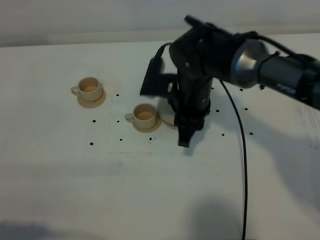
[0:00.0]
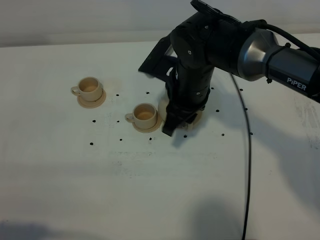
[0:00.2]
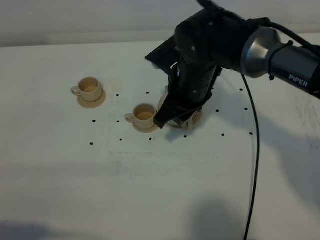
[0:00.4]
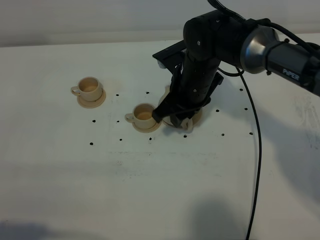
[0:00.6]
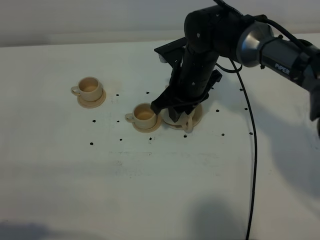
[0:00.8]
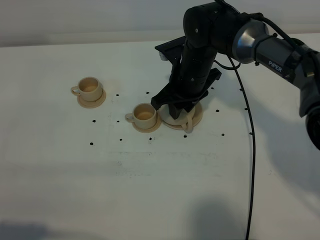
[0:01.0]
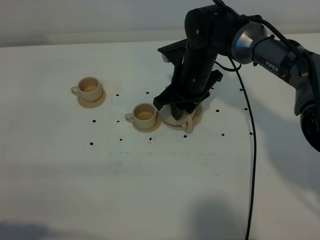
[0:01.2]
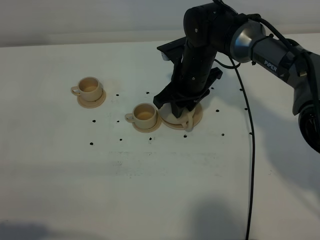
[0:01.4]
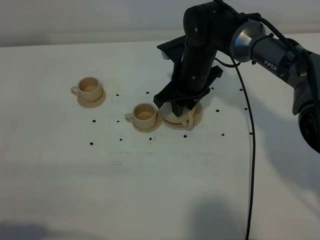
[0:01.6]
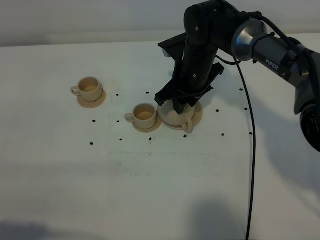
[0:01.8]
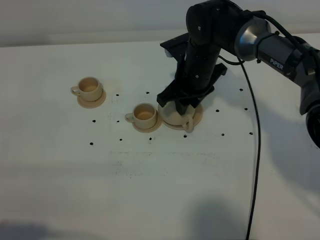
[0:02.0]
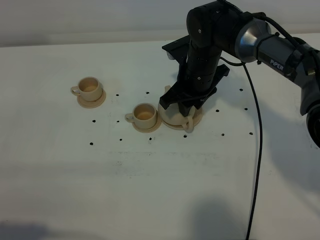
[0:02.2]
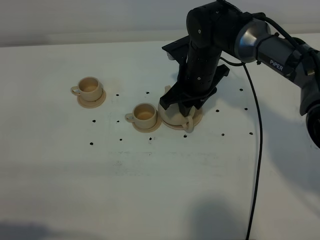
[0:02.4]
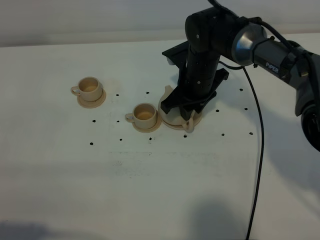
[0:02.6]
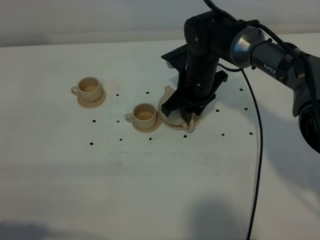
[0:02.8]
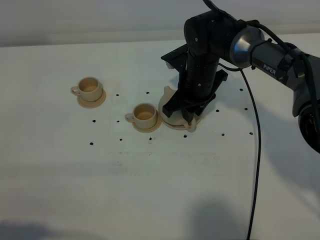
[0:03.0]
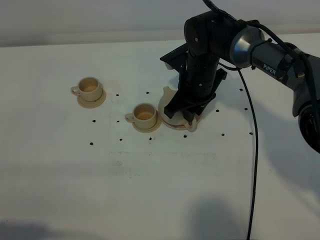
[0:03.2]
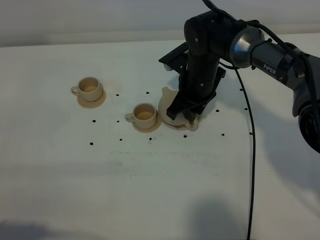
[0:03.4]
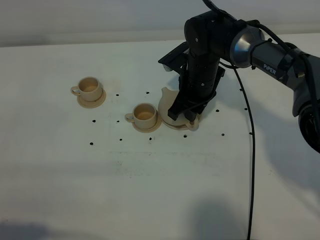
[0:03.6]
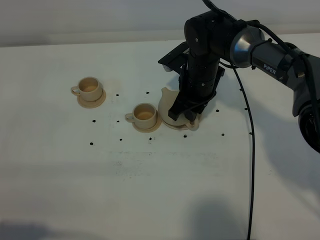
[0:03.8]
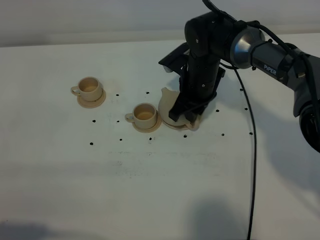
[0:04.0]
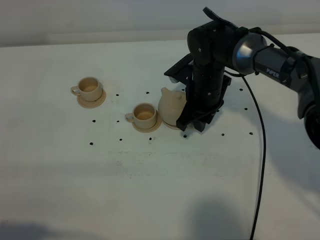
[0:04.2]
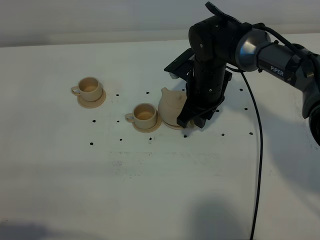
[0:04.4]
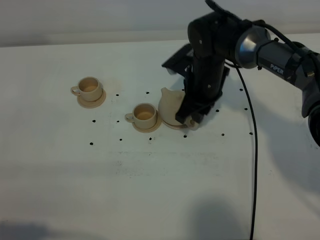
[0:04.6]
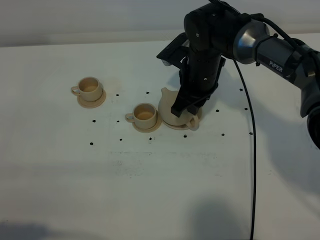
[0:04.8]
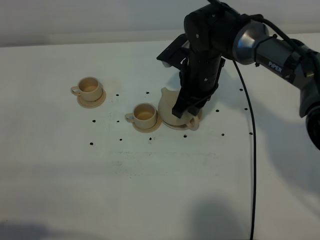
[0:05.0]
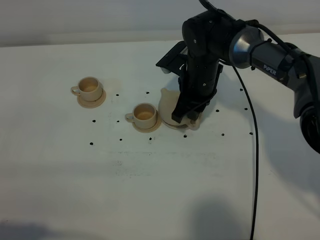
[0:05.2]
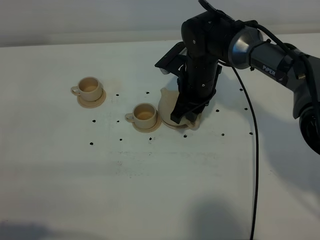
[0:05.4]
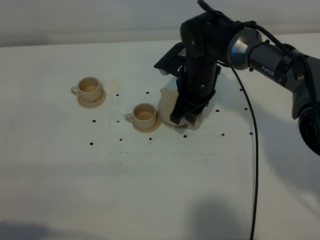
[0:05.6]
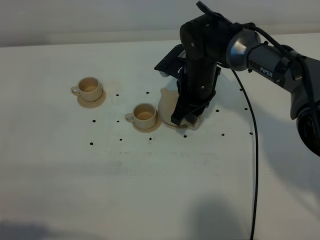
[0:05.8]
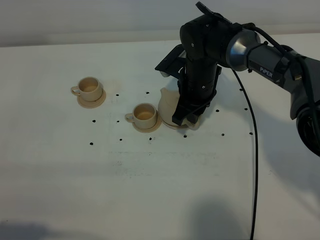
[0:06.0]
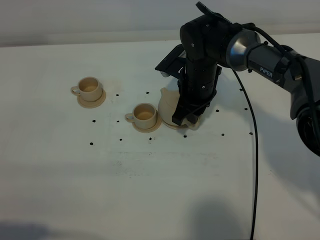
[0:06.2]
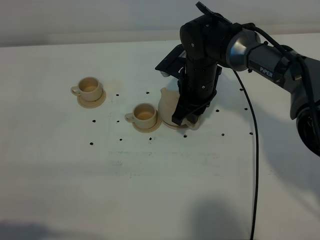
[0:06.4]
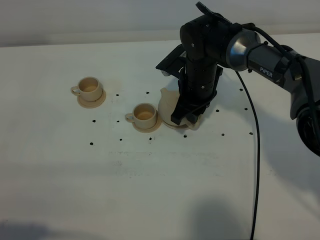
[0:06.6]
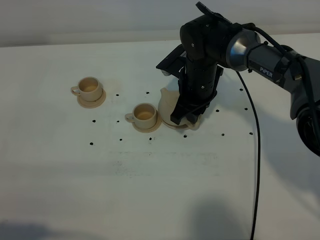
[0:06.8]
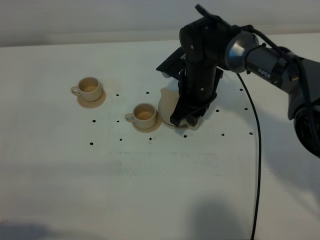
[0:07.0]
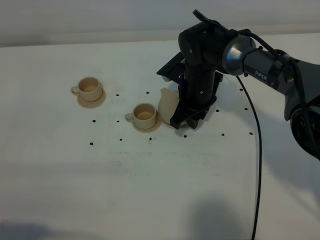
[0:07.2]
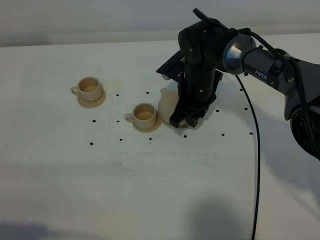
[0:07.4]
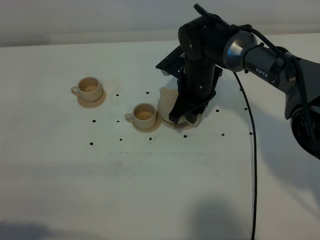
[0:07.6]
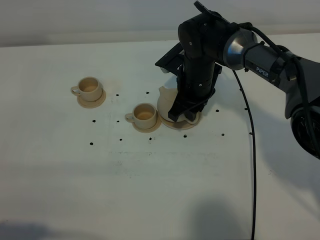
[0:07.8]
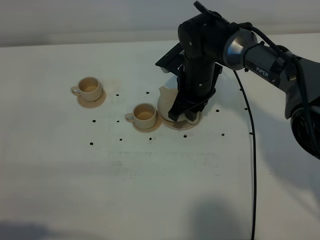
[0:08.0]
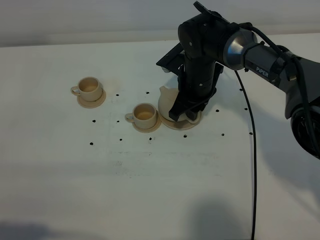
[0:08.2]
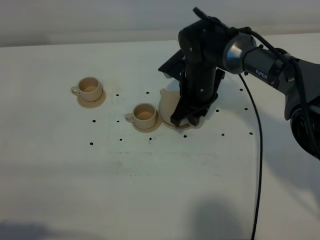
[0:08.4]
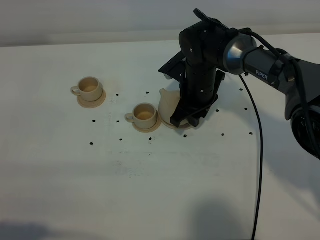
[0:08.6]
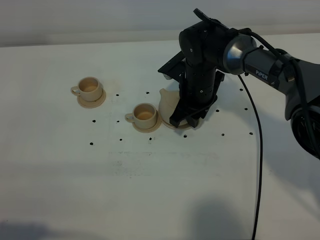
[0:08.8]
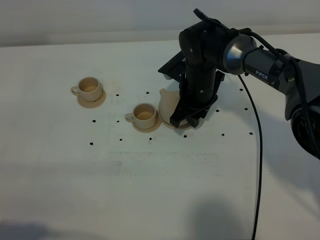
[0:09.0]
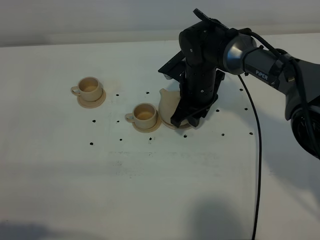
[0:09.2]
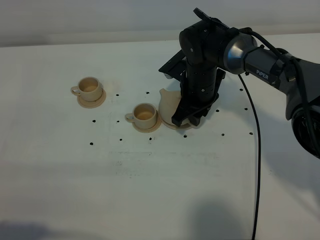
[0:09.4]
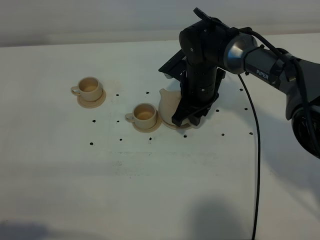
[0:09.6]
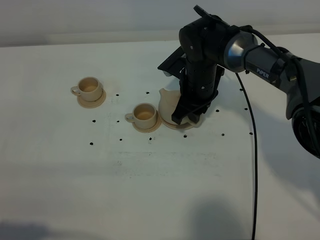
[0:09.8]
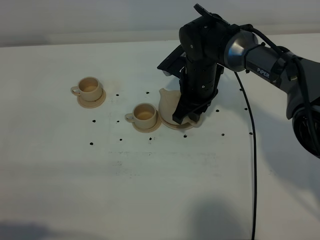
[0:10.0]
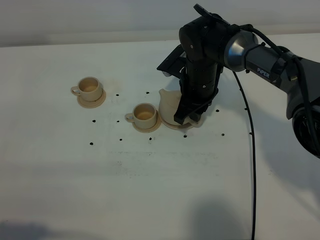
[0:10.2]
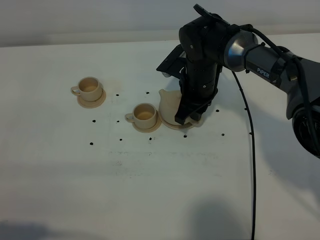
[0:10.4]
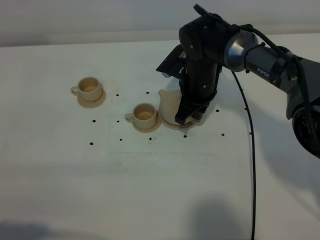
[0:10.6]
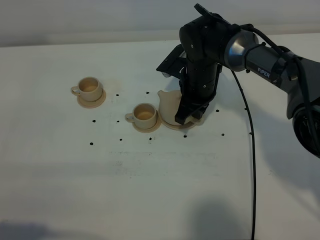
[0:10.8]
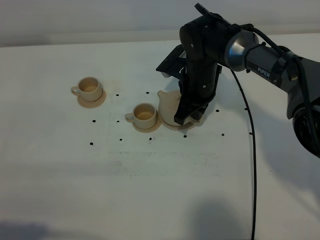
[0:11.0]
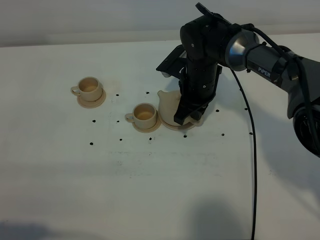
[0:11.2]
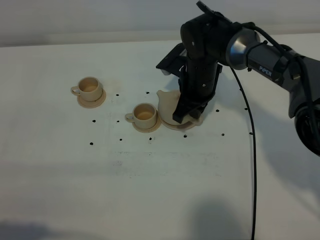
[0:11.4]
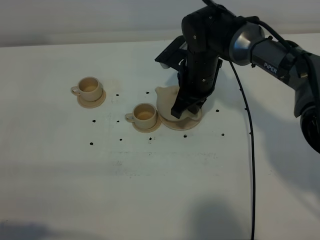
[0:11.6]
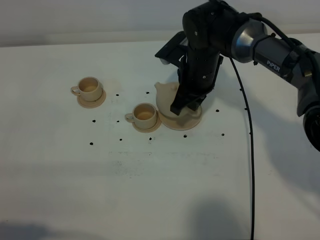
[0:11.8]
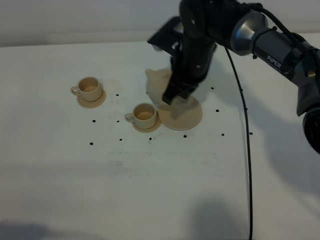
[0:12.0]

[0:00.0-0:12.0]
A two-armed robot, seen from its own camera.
Task of the whole recording: grasp the brown teapot and pour the tea into the two brown teacups one by one, put the brown teapot back in its original place.
Step, 0:00.0 to 0:11.8: Pick up the teapot with the right gripper.
0:00.0 to 0:01.6: The right gripper shifts about 5 cm forward.
0:01.6 to 0:04.4: There are only small adjustments of the grippers.
0:04.4 to 0:07.6: The grippers stay close to where they were, moving slightly.
0:07.6 to 0:09.0: Neither gripper changes place.
0:09.0 to 0:10.4: The grippers stay close to where they were, moving slightly.
0:10.4 to 0:12.0: The right gripper goes about 5 cm upward.

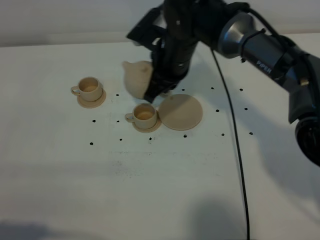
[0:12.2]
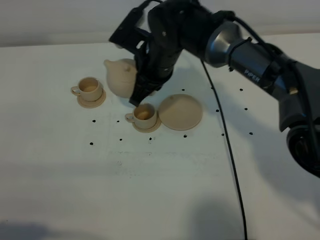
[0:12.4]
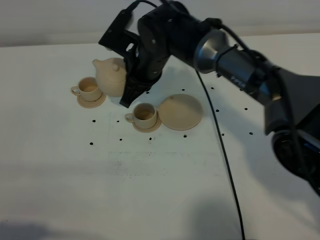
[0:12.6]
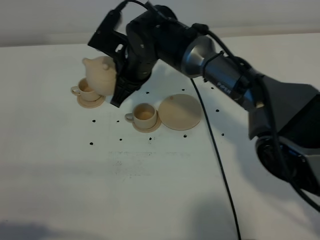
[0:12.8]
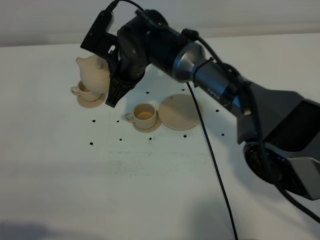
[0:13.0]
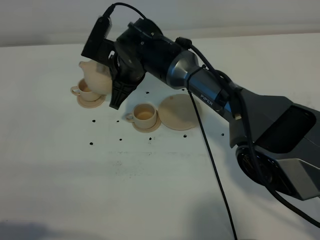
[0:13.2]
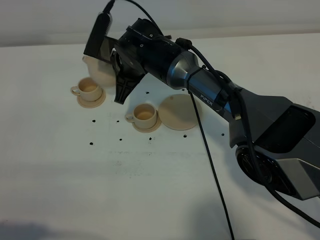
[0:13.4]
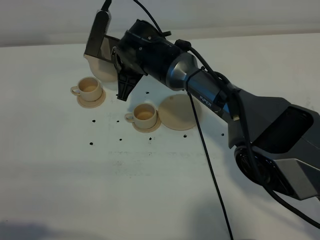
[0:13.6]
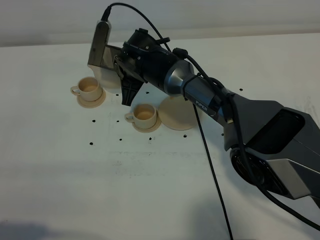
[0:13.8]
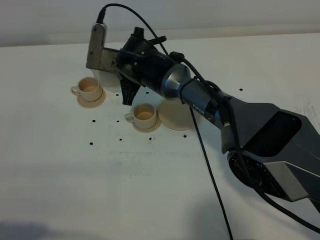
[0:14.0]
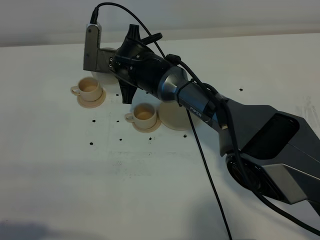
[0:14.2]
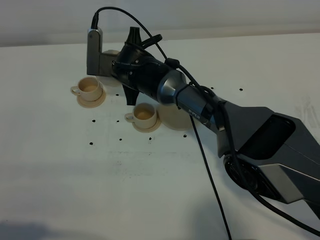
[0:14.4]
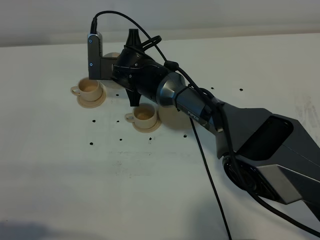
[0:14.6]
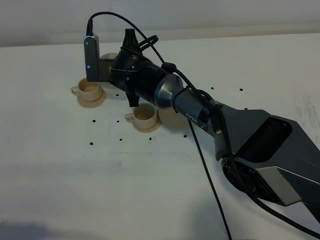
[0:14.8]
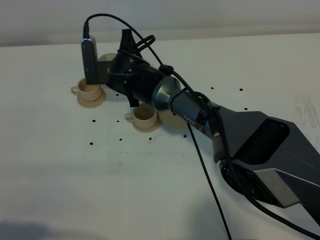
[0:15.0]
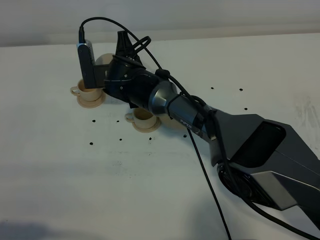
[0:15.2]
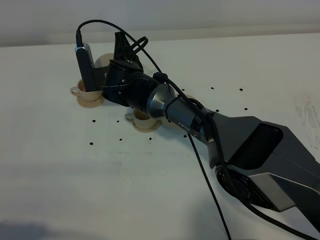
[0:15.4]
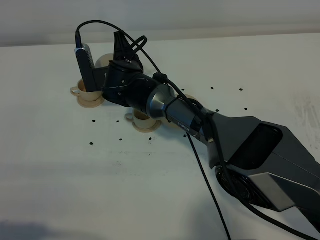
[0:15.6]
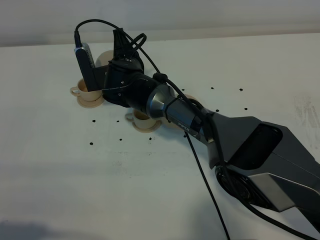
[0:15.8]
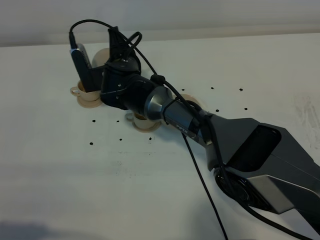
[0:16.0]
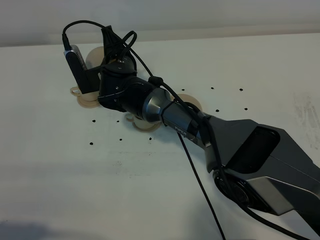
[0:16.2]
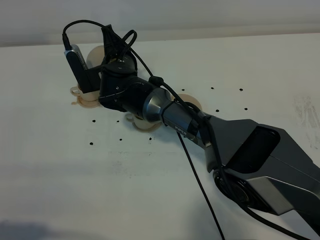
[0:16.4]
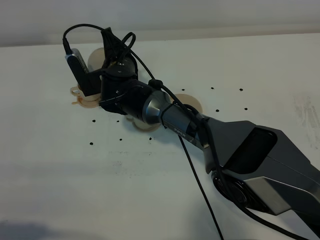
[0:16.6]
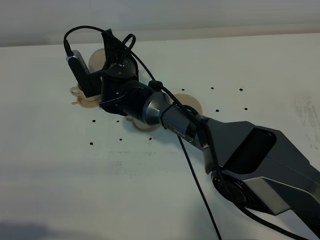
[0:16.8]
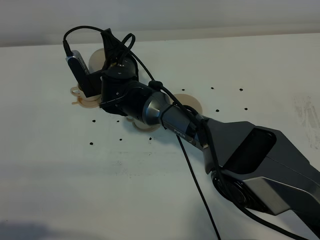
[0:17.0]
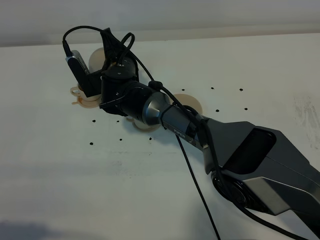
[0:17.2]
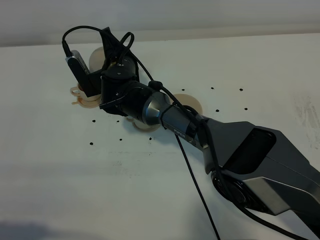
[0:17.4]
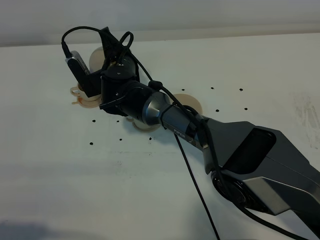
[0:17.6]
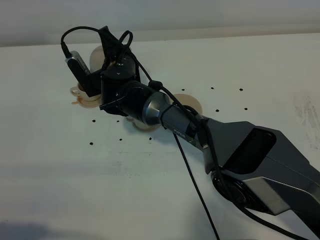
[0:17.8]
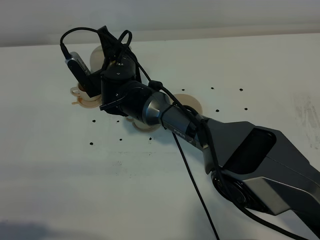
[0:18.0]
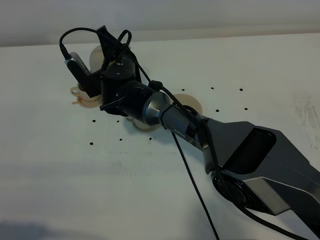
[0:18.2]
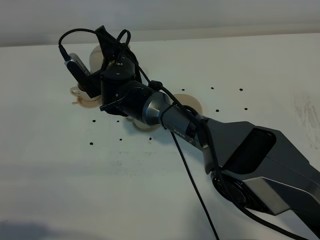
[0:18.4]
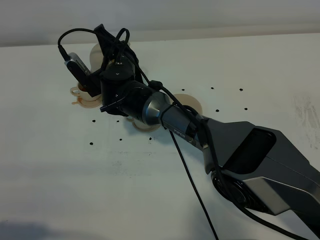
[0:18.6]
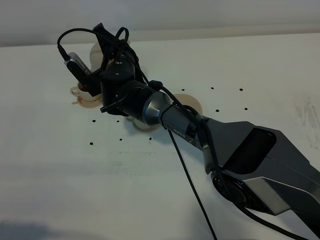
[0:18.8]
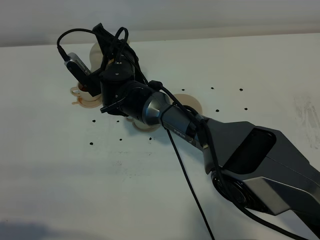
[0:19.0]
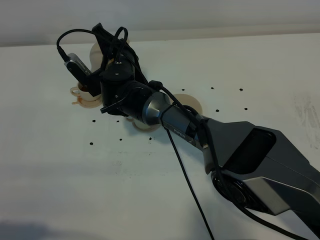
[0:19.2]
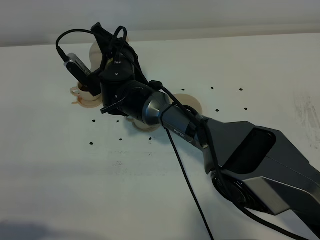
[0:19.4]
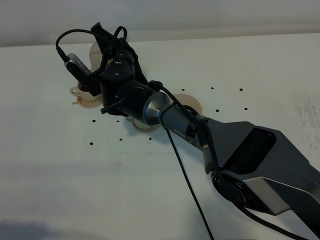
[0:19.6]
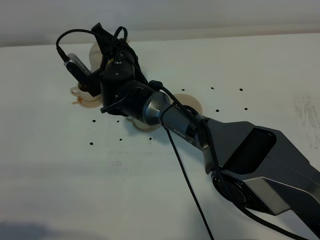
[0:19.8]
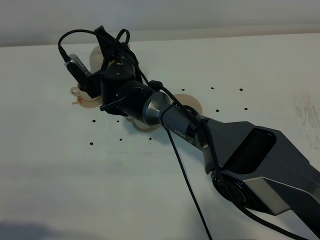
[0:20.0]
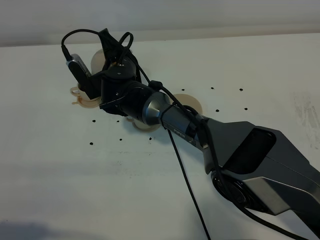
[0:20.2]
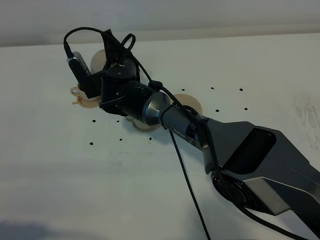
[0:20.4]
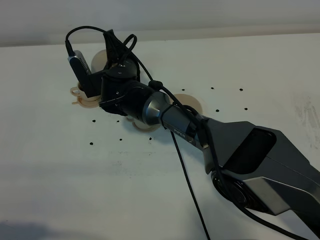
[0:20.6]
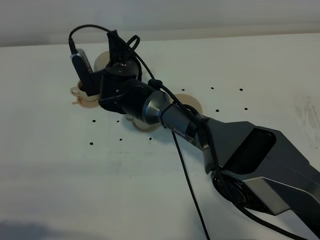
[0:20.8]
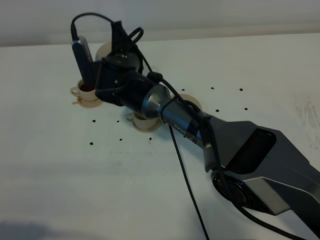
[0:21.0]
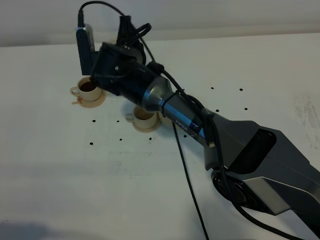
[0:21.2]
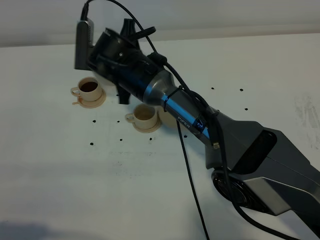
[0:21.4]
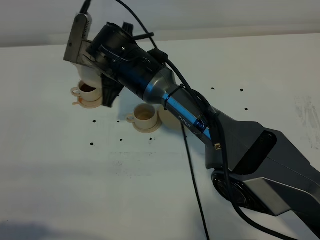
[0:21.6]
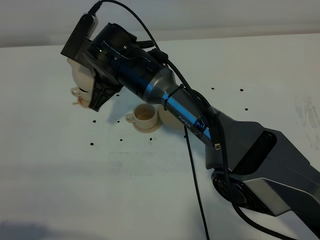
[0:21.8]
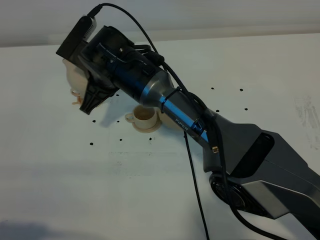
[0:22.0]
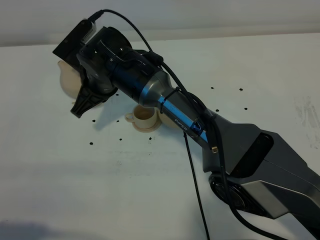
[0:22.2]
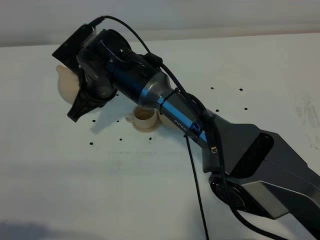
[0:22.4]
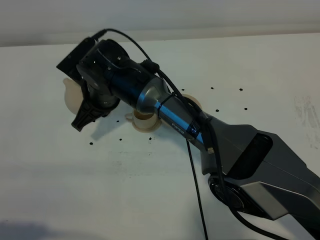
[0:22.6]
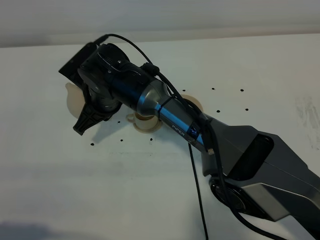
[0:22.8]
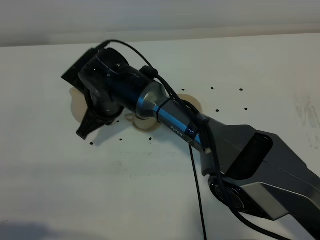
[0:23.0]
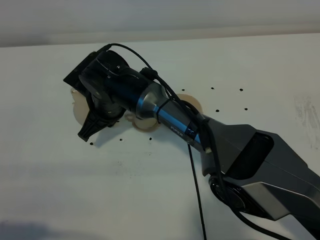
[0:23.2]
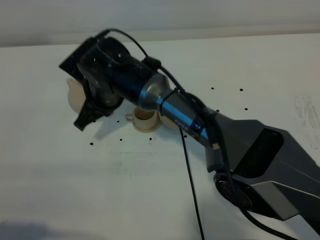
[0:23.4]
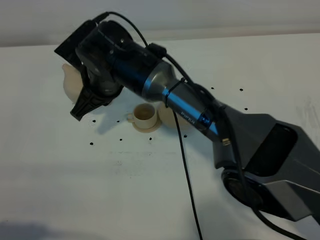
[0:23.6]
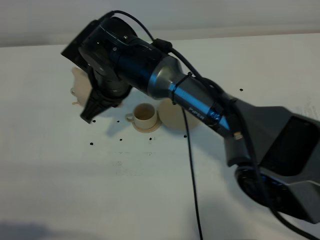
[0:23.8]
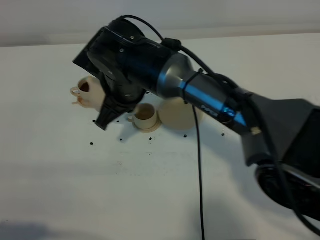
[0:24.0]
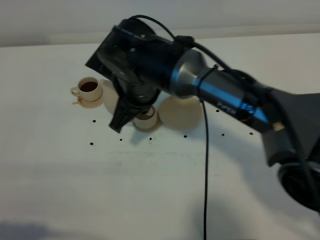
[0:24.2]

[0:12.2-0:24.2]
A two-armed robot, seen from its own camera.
Task of the whole recording: grasp the brown teapot and pour the tea into the two brown teacups one by one, put the brown teapot back in its original place.
Step, 0:12.2 to 0:21.0: Pour tea into the teacup with the right gripper.
0:12.2 to 0:13.8: The right gripper moves to the left and downward, roughly 10 cm.
0:15.2 to 0:16.6: There are only small adjustments of the grippers.
0:16.6 to 0:19.8: The grippers stay close to where they were, moving slightly.
0:21.2 to 0:22.6: The right gripper moves approximately 5 cm.
0:22.6 to 0:24.2: The right gripper travels to the right and upward by roughly 10 cm.
